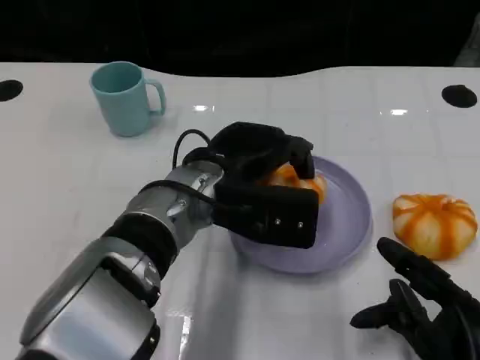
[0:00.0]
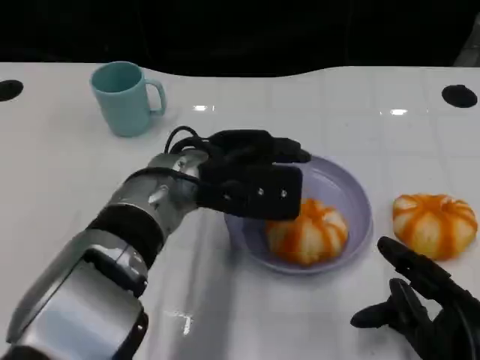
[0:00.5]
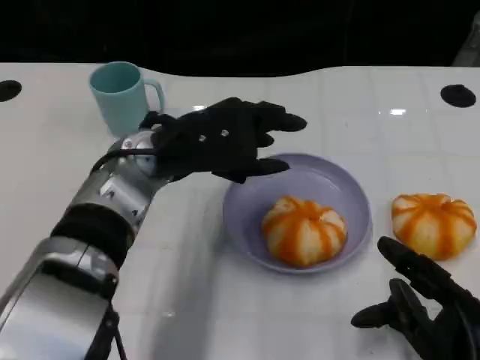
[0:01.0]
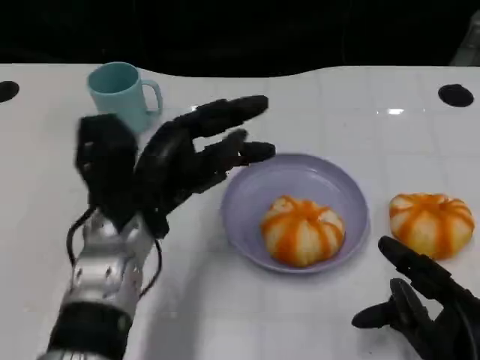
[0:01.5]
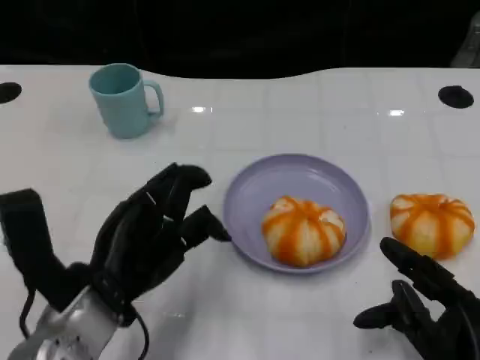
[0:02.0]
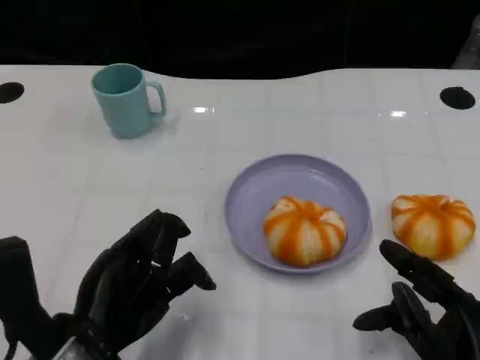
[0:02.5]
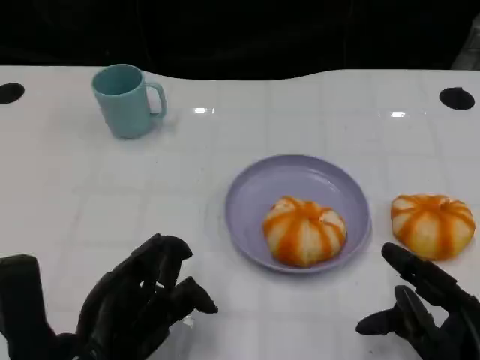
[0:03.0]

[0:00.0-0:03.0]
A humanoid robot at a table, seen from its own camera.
Task of the whole recording: Grasp the bread from the table and place it into the plate.
0:00.0 to 0:01.5: The left hand goes about 10 cm to the left.
0:01.5 to 0:03.0: The left hand goes some 10 cm backward.

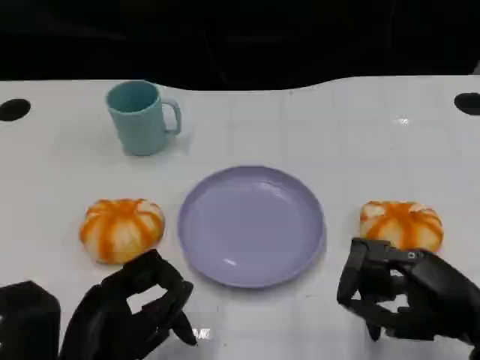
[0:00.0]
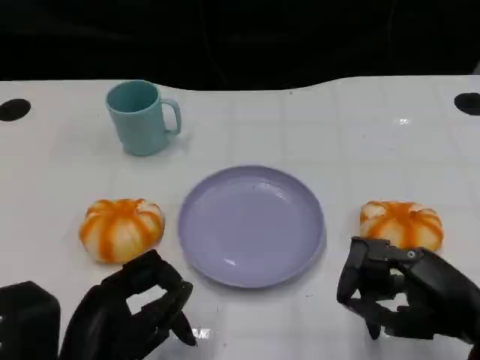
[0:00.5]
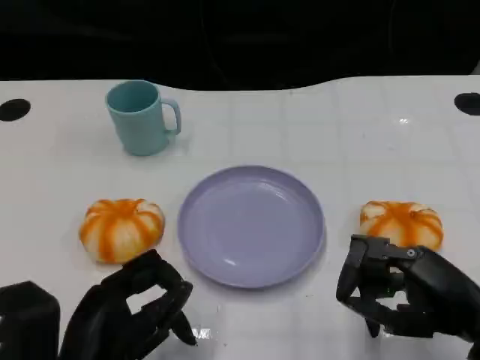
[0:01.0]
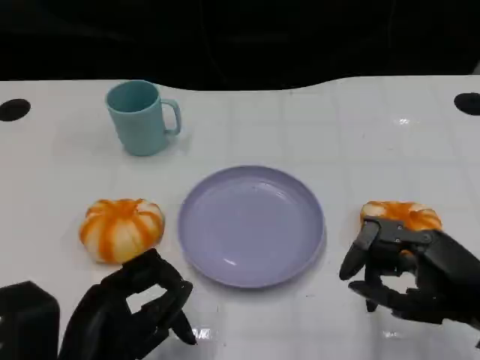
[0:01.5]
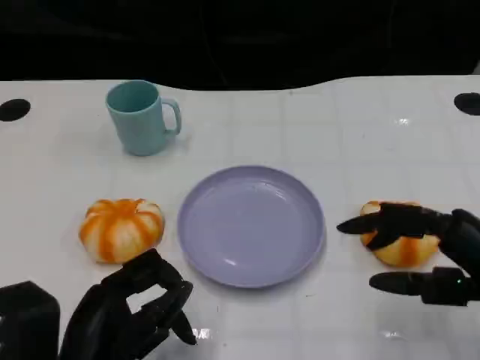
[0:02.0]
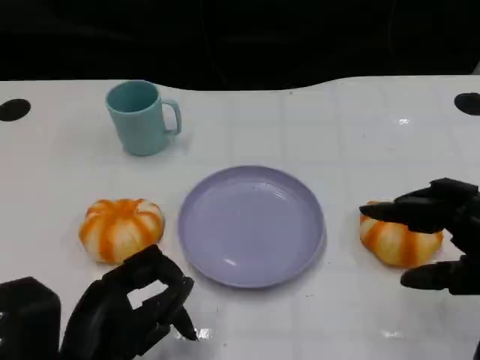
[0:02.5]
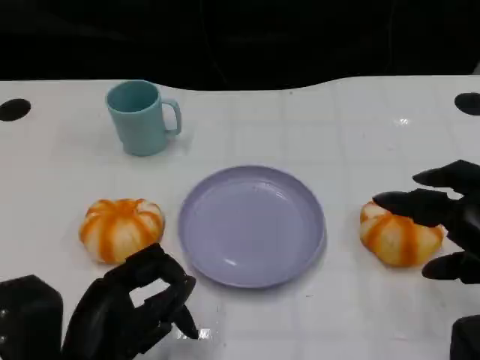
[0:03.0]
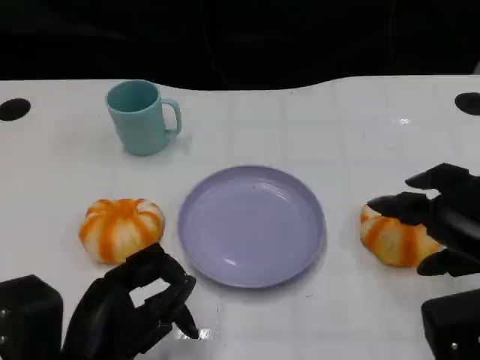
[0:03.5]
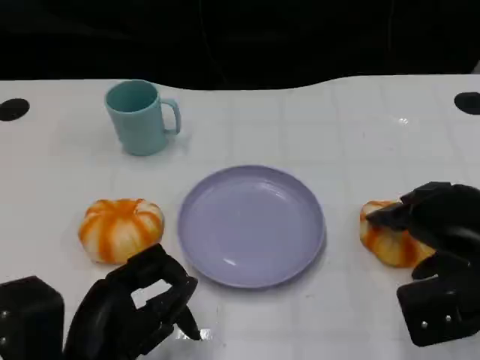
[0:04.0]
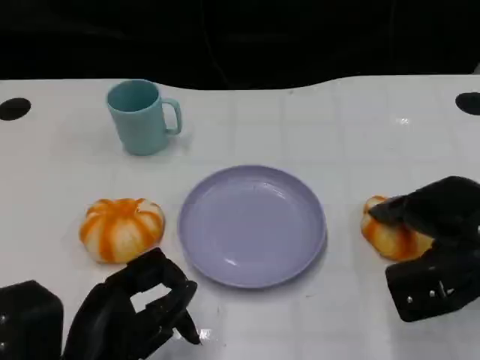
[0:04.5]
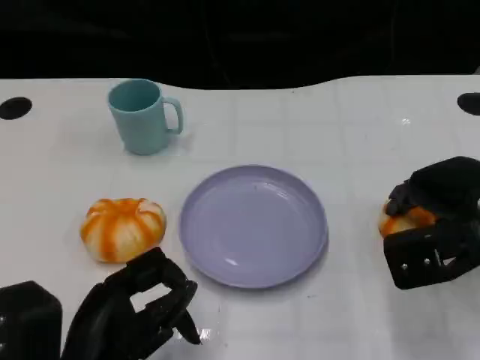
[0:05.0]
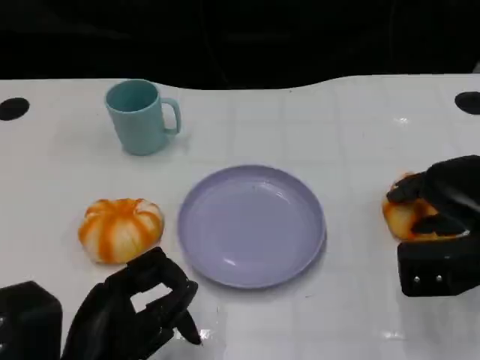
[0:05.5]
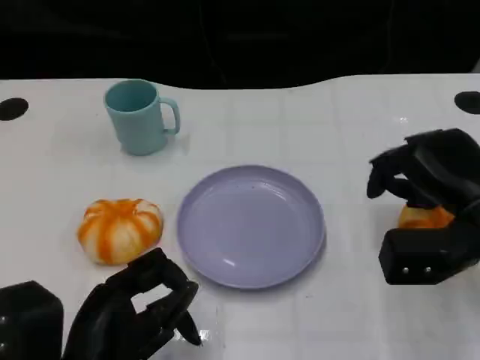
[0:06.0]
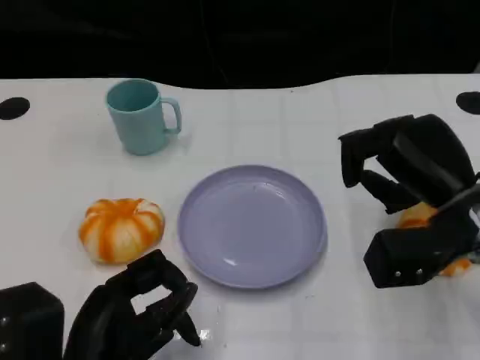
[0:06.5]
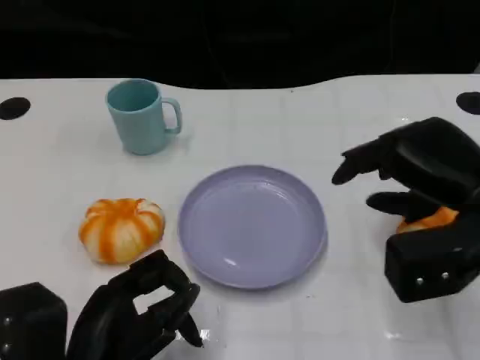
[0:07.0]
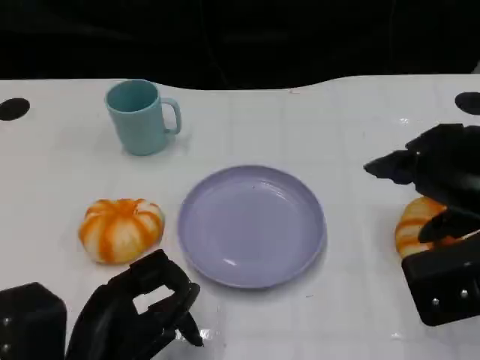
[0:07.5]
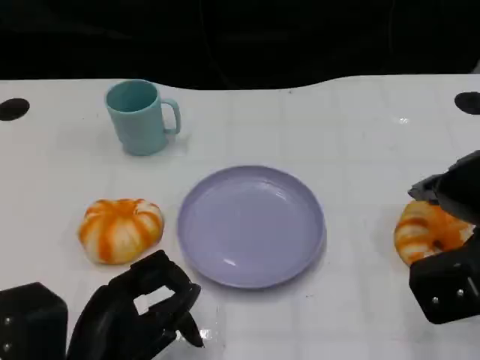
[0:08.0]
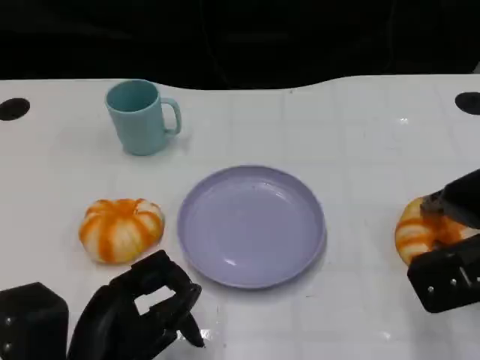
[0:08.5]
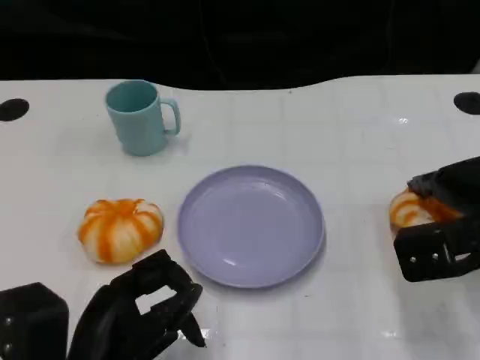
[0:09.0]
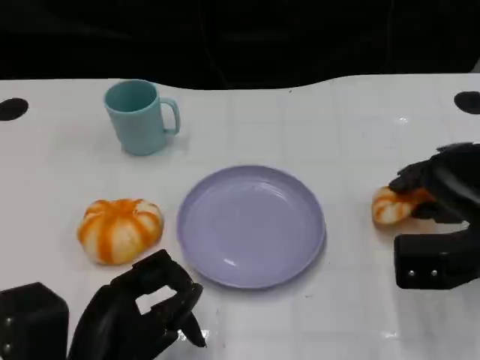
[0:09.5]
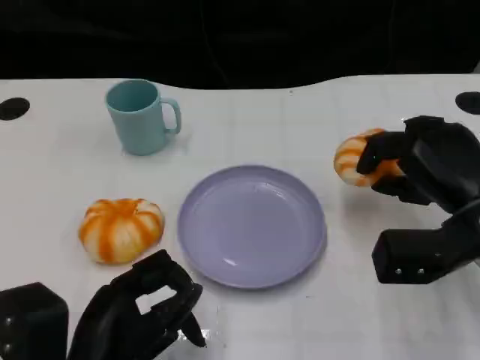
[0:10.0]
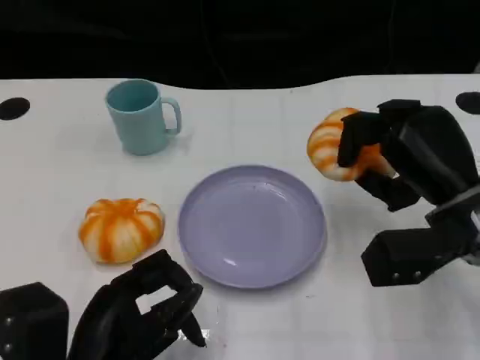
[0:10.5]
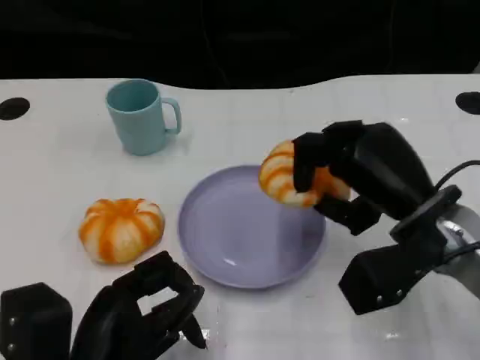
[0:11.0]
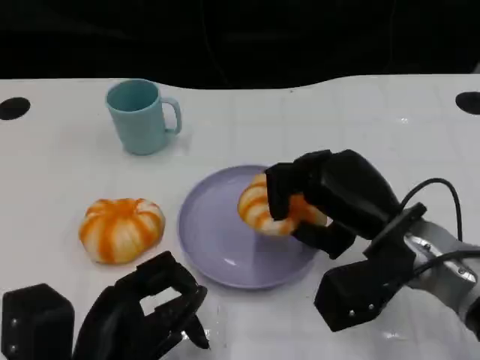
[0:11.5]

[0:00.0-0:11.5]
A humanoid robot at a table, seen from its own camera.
Task of the whole recording: Grasp the bread from the table and place it into the plate.
0:02.0 to 0:04.0: The right hand goes about 5 cm forward.
0:06.0 to 0:07.5: The right hand heads upward and backward, covering some 10 cm.
0:07.5 to 0:09.5: The right hand heads downward and forward, covering approximately 10 cm.
0:09.5 to 0:11.5: The right hand goes some 10 cm to the left.

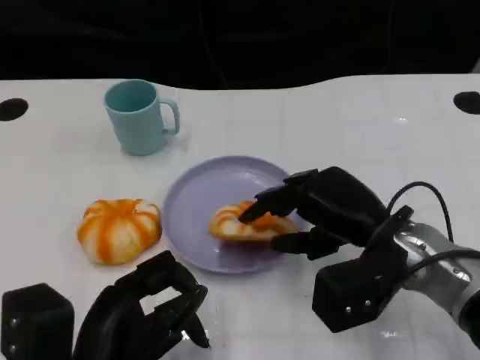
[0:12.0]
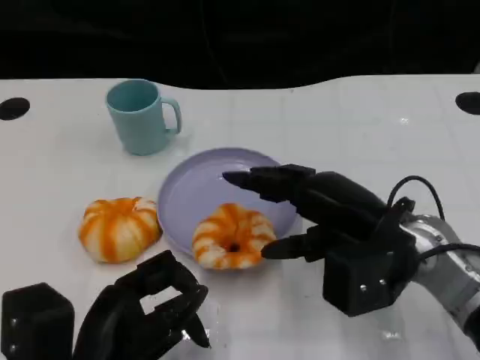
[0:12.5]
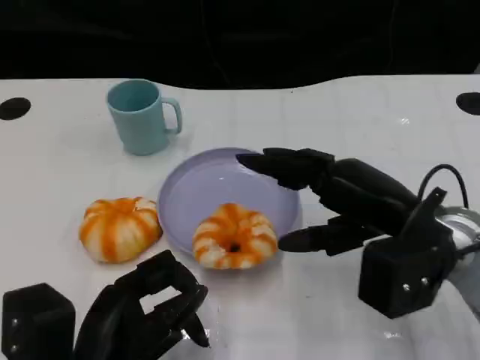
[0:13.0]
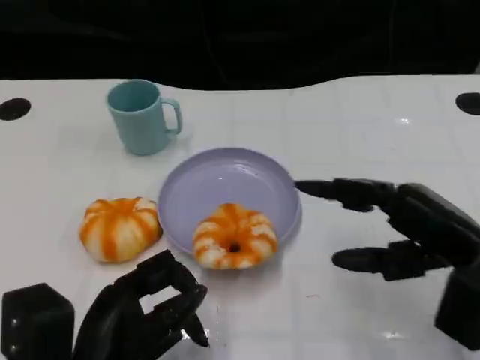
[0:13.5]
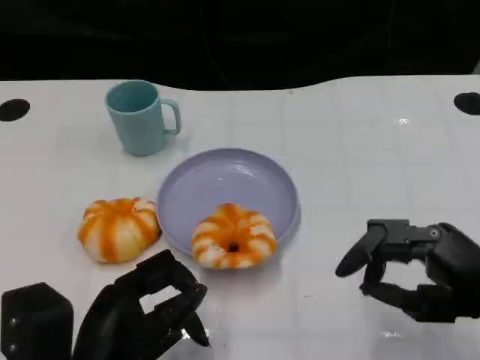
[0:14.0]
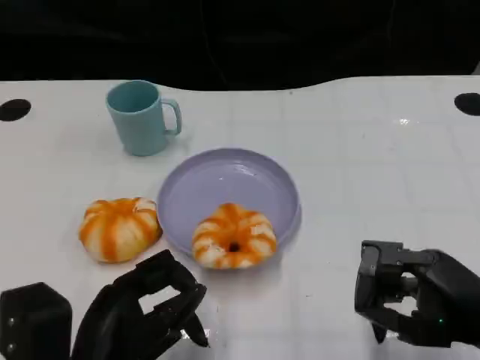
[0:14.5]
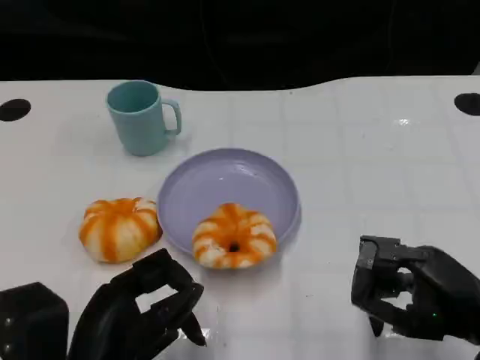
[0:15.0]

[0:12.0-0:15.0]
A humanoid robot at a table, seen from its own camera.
Task of the whole recording: Grasp the bread from the table and place it into the plate.
0:12.0 to 0:13.5: The right hand heads to the right, covering about 10 cm.
0:13.5 to 0:15.0: The right hand ends up some 5 cm from where it was.

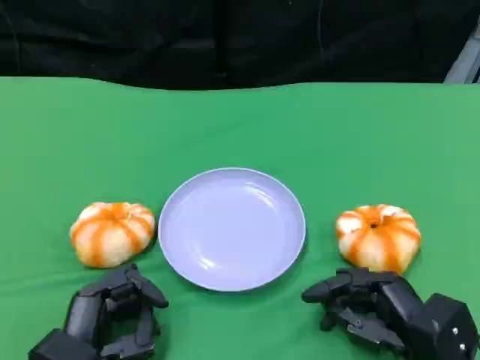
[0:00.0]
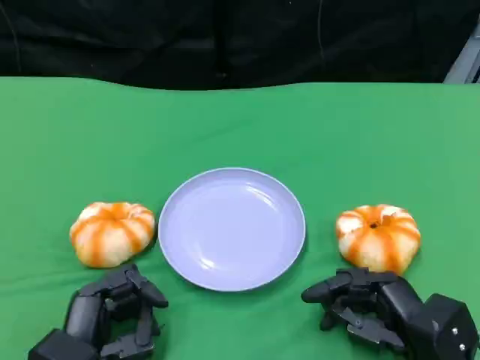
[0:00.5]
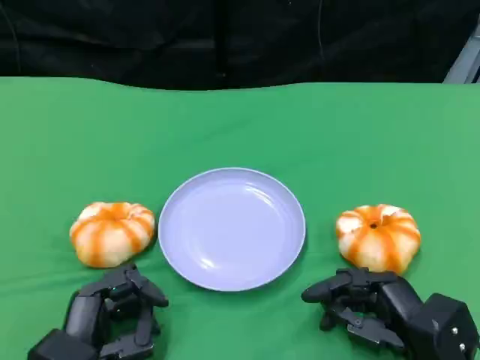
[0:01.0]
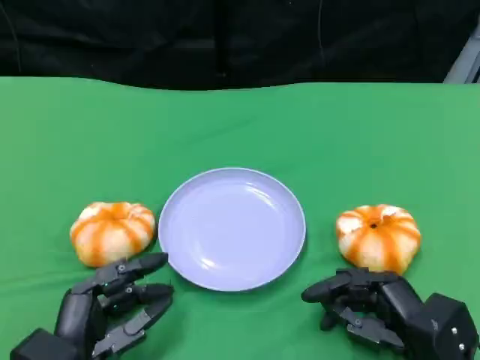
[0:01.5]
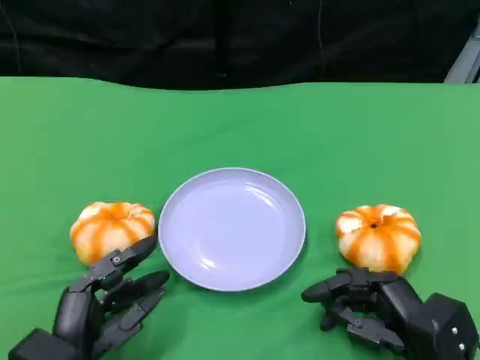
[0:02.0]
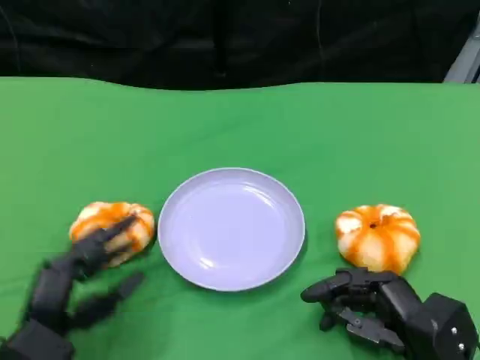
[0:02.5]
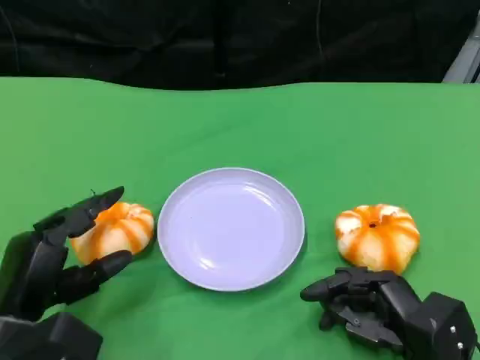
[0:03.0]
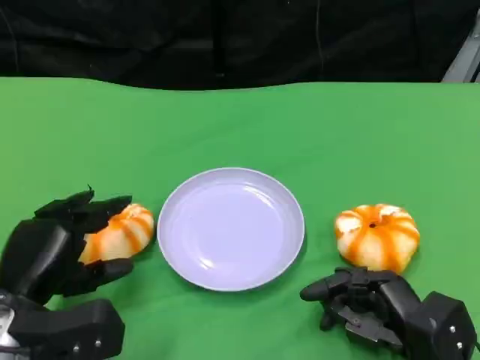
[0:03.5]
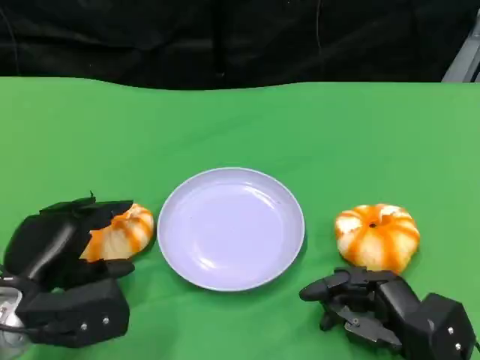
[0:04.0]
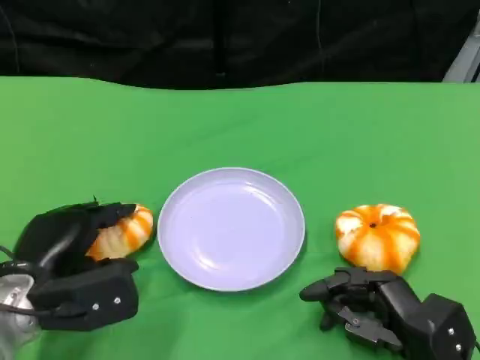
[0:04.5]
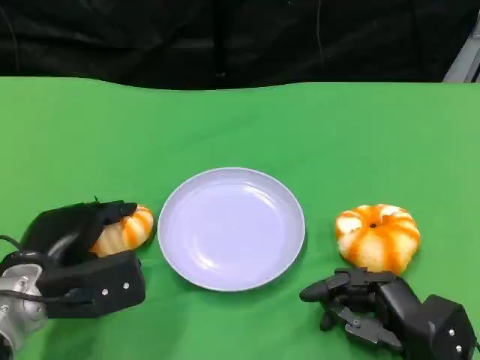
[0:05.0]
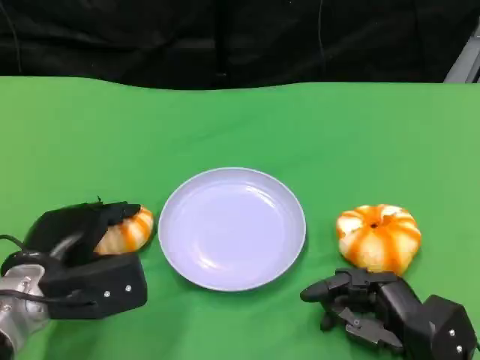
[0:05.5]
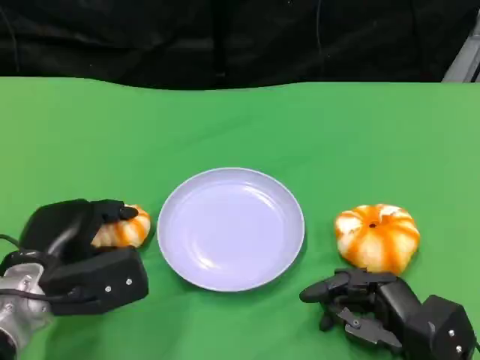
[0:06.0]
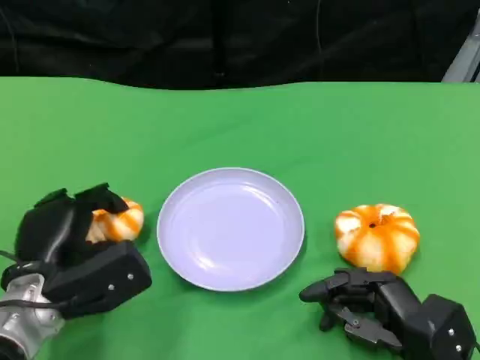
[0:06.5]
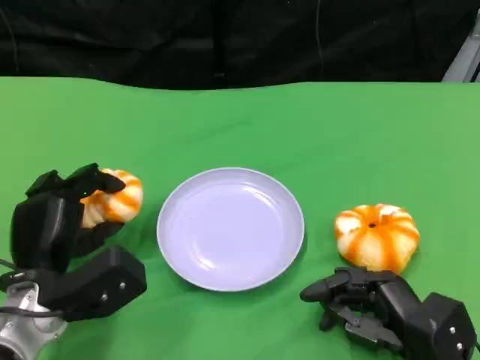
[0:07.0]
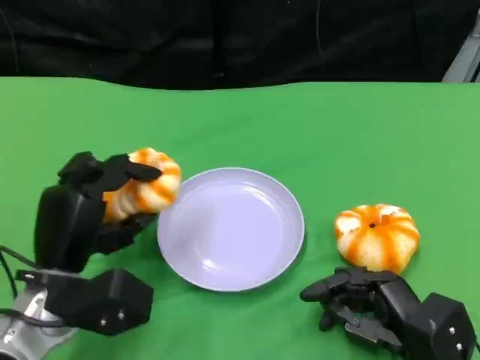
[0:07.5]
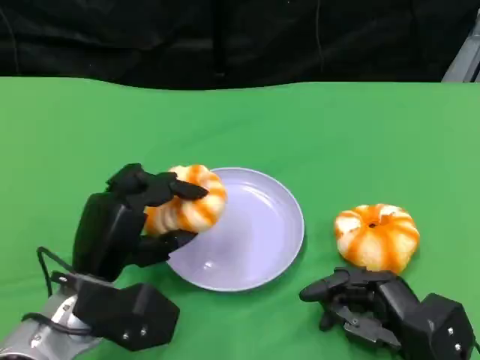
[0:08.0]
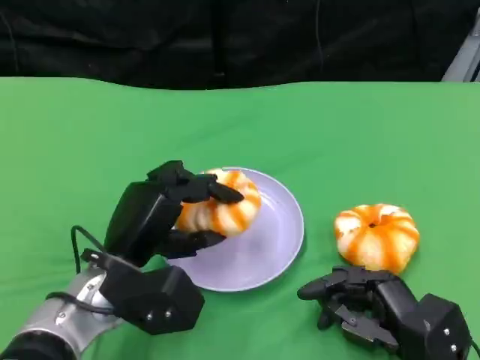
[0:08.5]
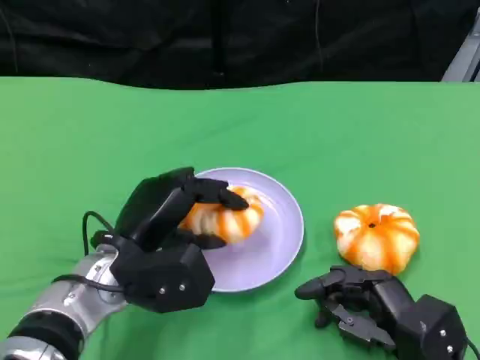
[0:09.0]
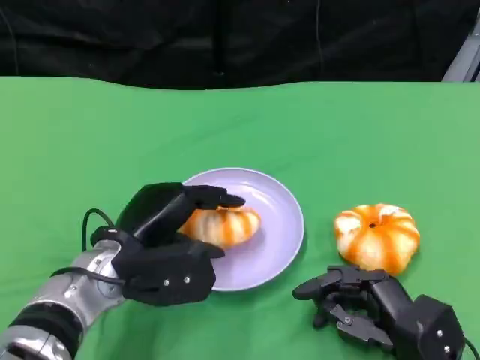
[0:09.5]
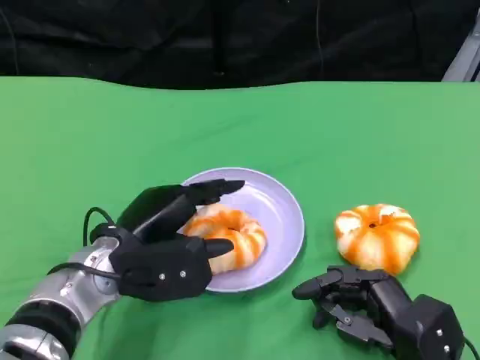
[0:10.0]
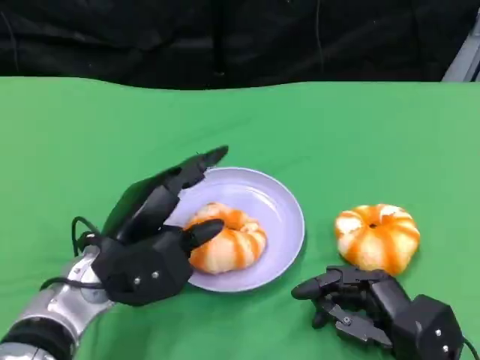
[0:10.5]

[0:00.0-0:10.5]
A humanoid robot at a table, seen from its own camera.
Task of the whole recording: Grasp the bread from the table and place it into the plate.
0:00.0 to 0:02.0: Both hands stay put.
0:02.0 to 0:04.0: The left hand shifts approximately 5 cm forward.
0:04.0 to 0:06.5: The hands make only small movements.
0:06.5 to 0:08.5: The left hand shifts some 5 cm to the right.
